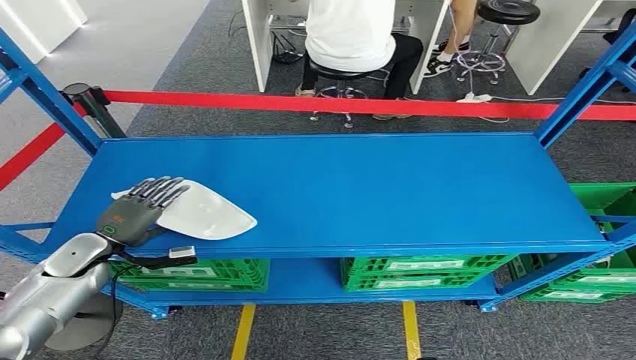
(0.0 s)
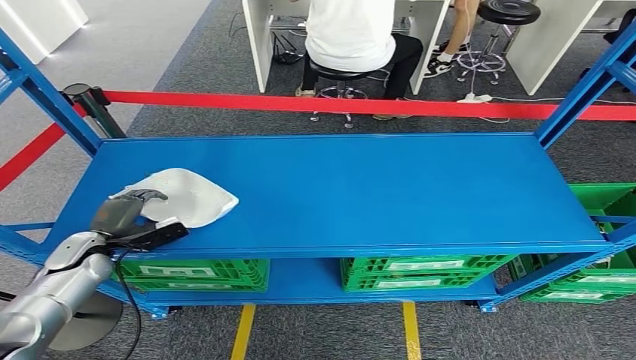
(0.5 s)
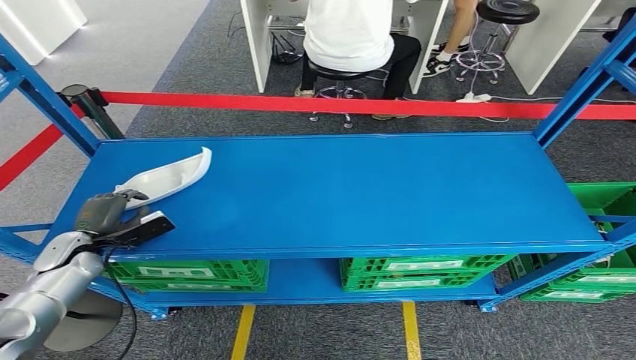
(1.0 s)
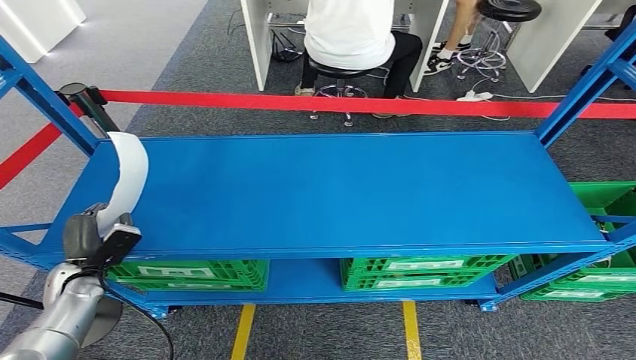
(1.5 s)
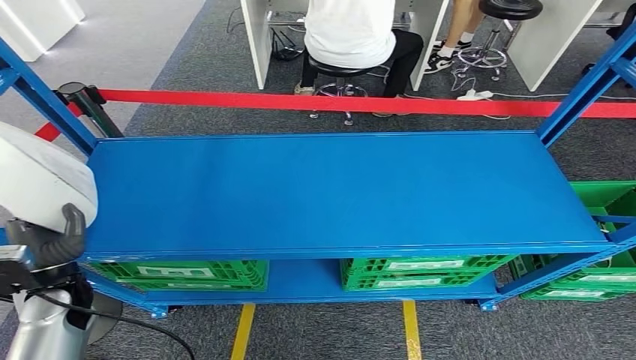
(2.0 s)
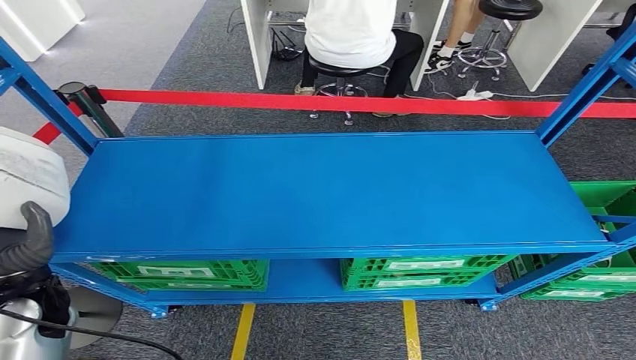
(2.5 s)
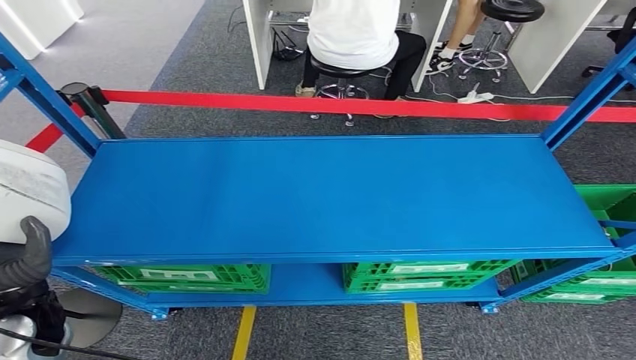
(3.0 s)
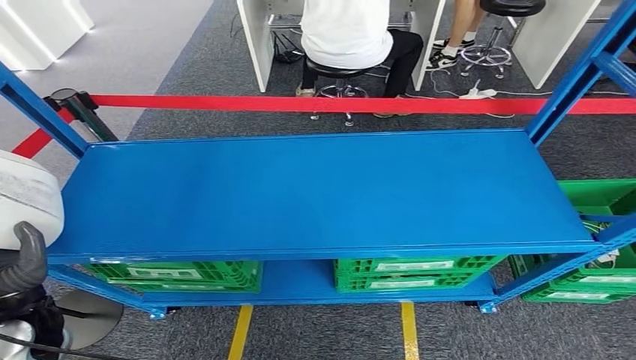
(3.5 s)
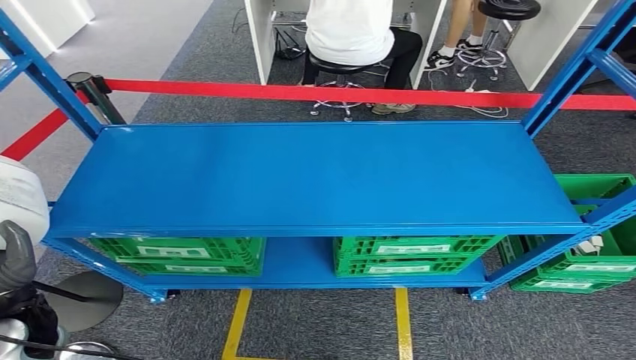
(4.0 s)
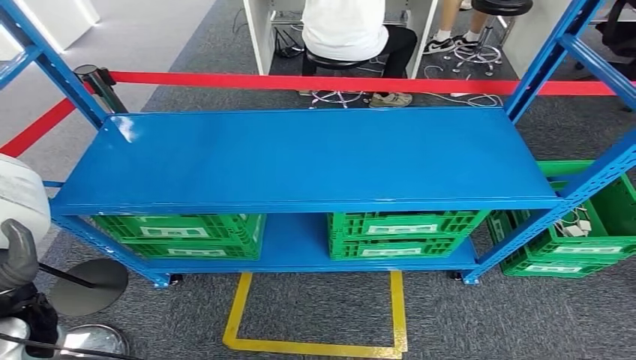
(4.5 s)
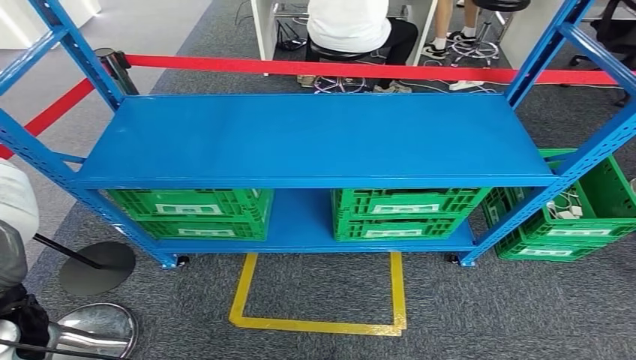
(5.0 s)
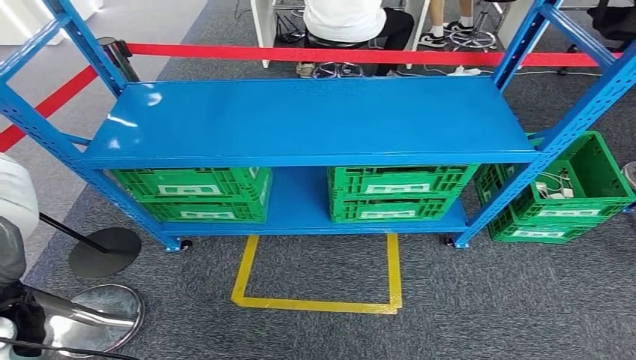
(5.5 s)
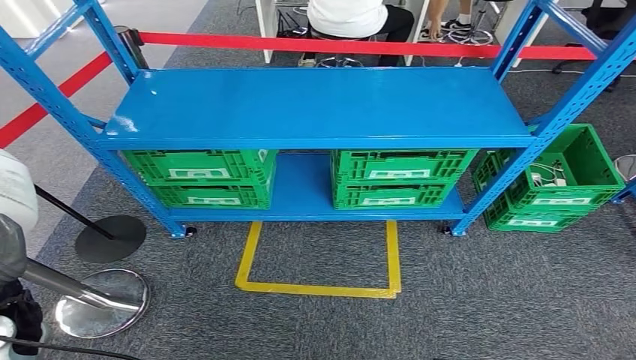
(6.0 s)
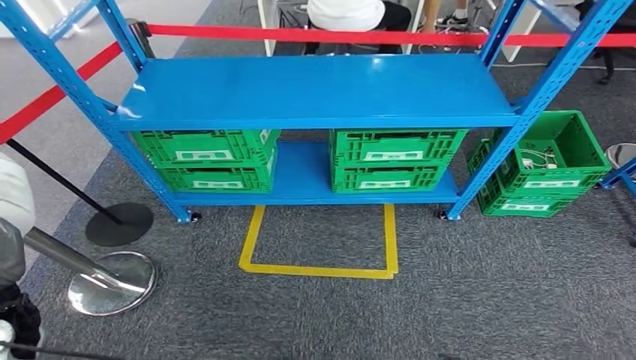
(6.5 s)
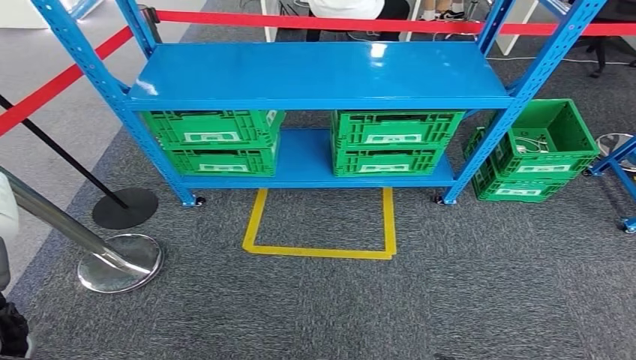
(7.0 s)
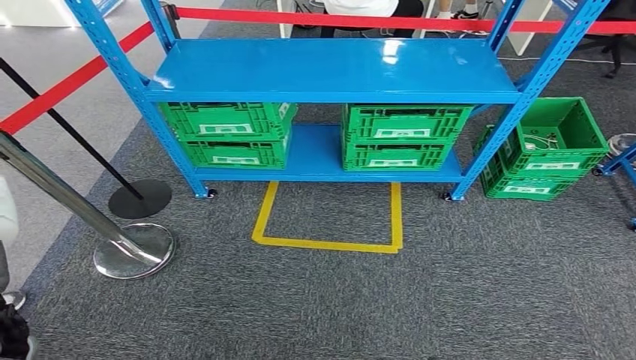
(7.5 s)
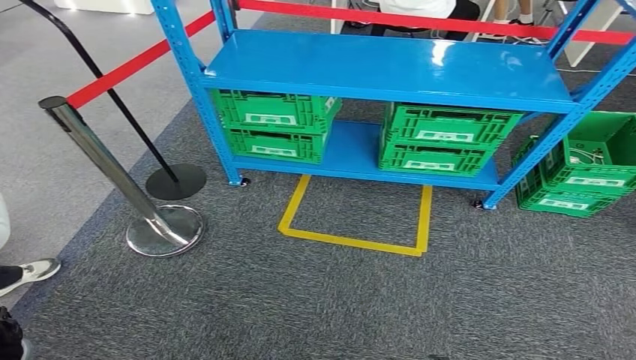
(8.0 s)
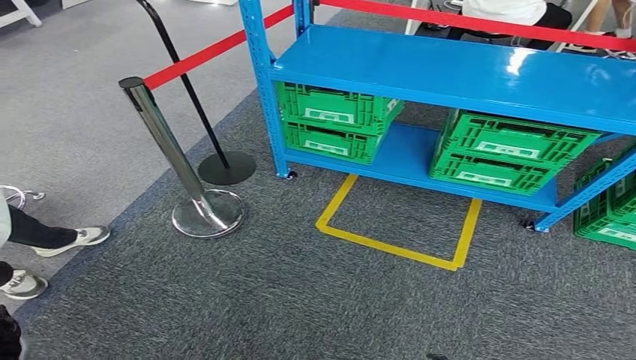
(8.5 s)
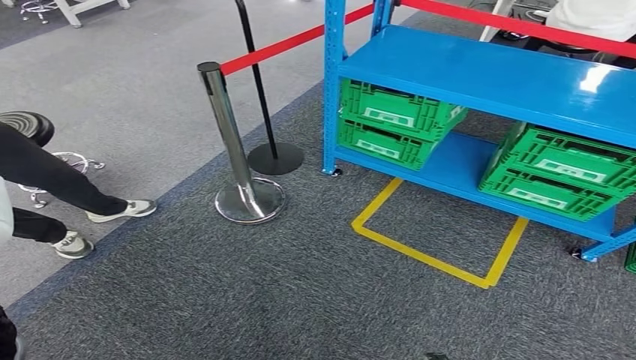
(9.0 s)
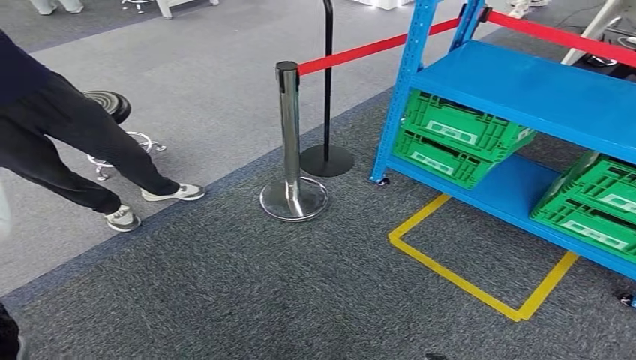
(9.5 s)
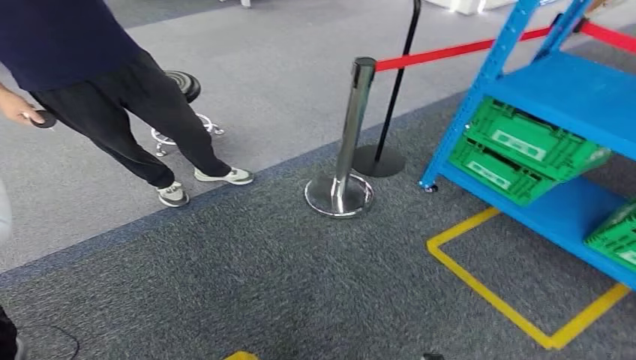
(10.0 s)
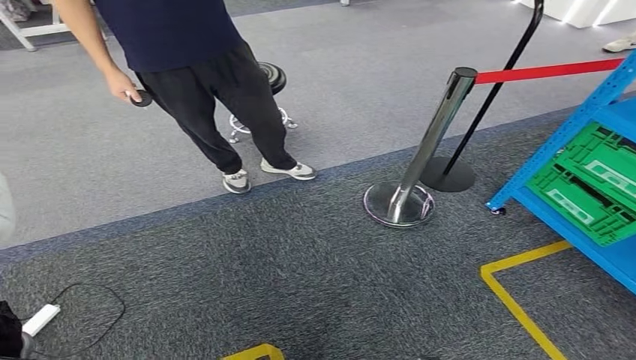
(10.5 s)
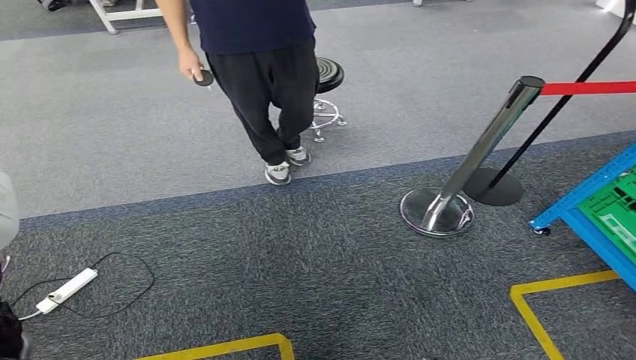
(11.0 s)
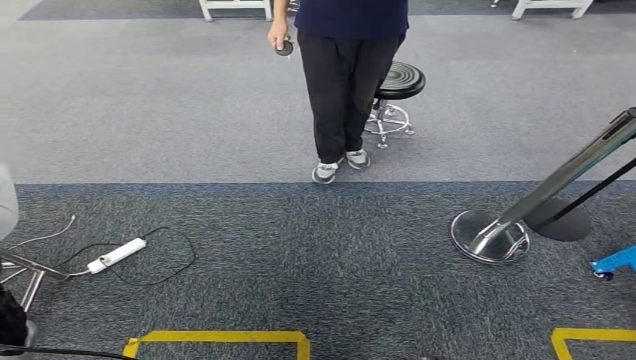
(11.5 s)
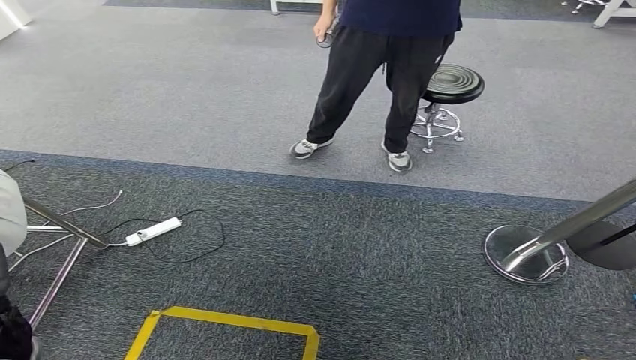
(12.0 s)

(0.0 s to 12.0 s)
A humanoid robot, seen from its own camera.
Step, 0.0 s - 5.0 s: Pick up the small parts from the shelf.

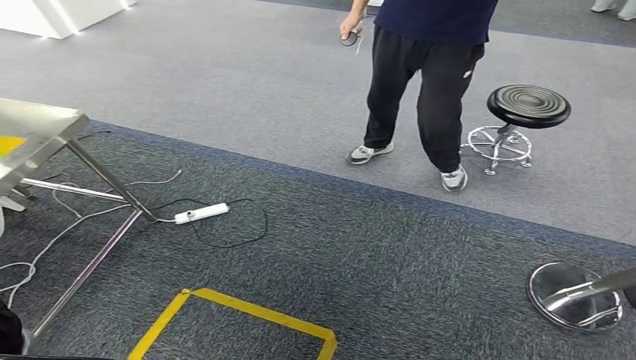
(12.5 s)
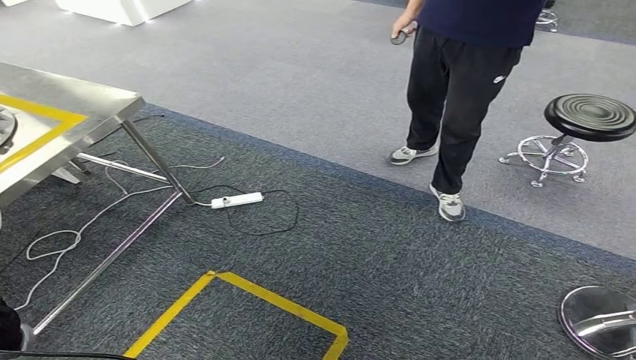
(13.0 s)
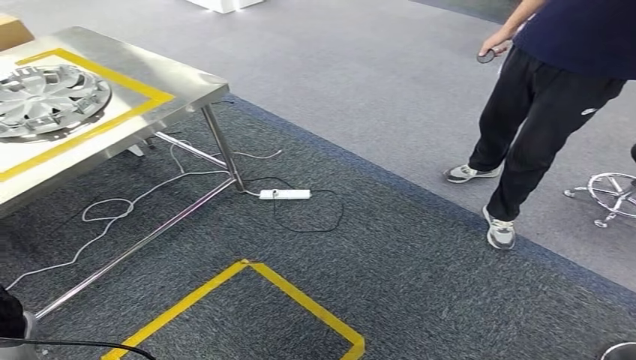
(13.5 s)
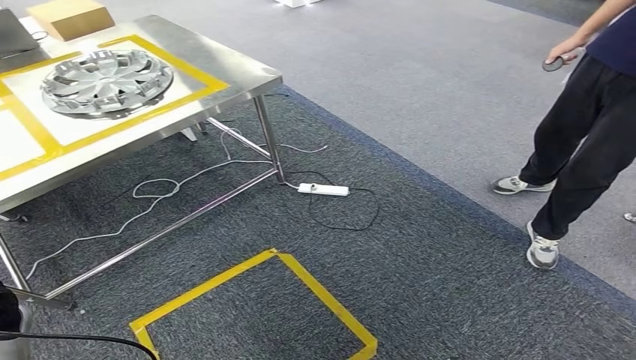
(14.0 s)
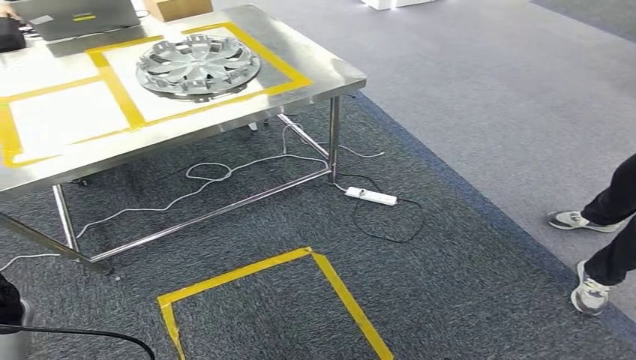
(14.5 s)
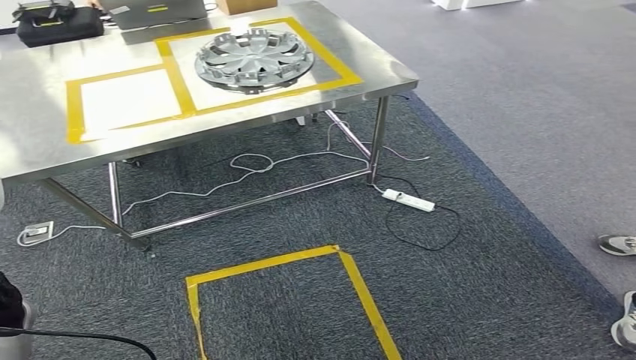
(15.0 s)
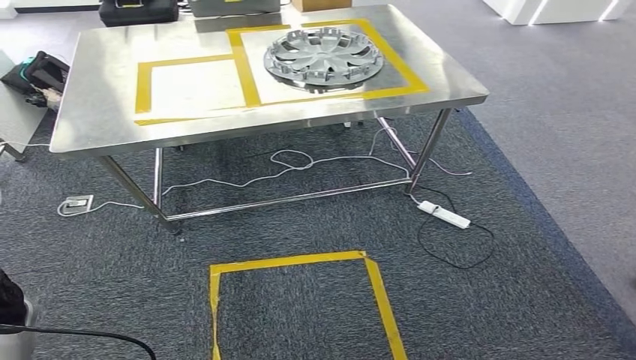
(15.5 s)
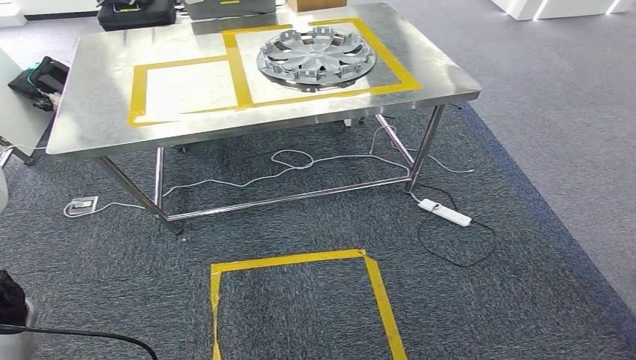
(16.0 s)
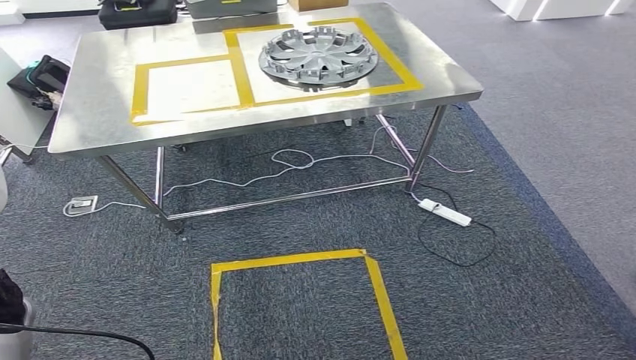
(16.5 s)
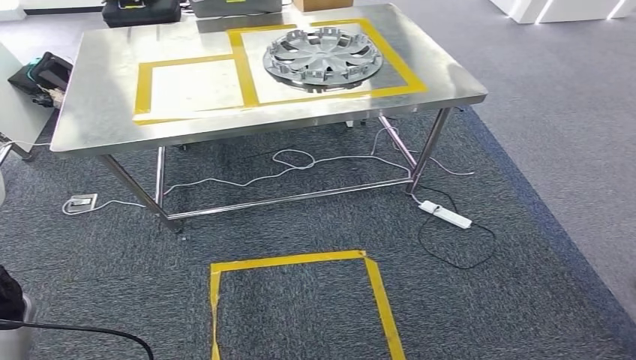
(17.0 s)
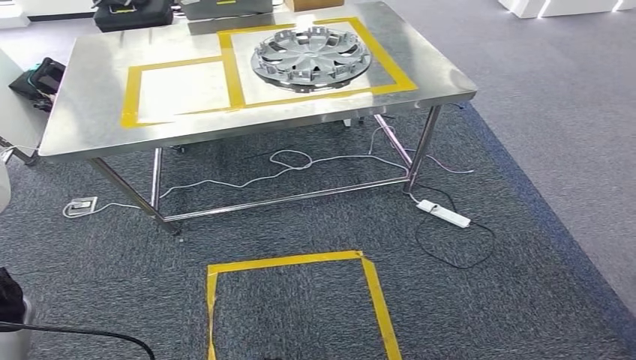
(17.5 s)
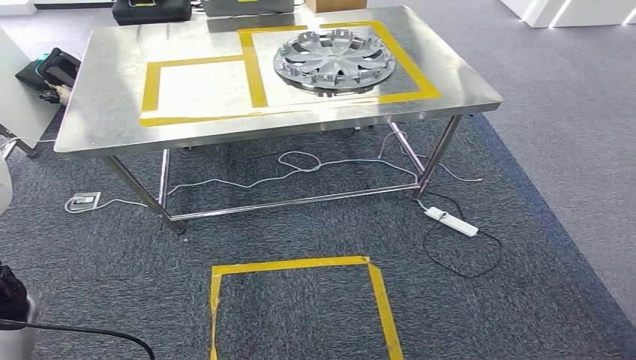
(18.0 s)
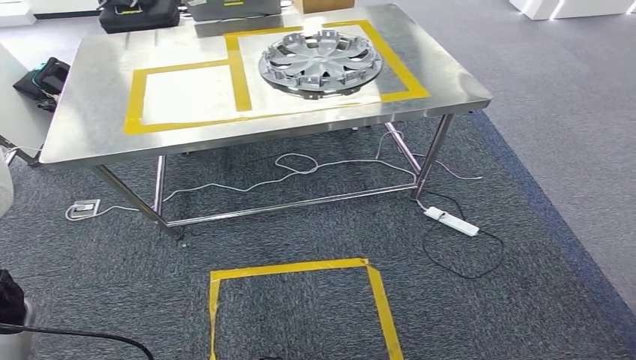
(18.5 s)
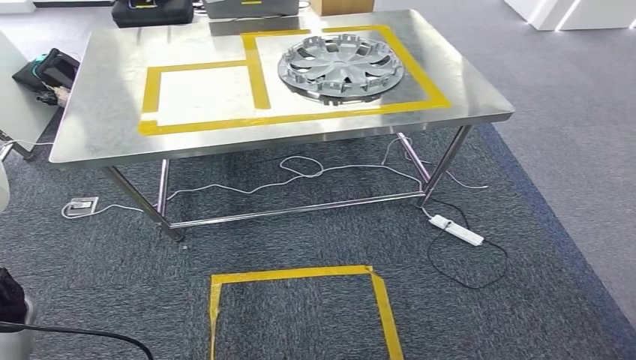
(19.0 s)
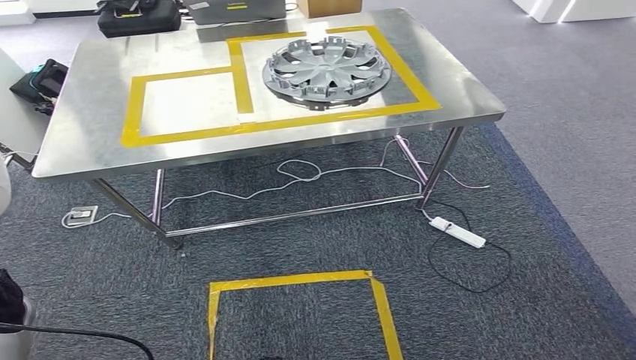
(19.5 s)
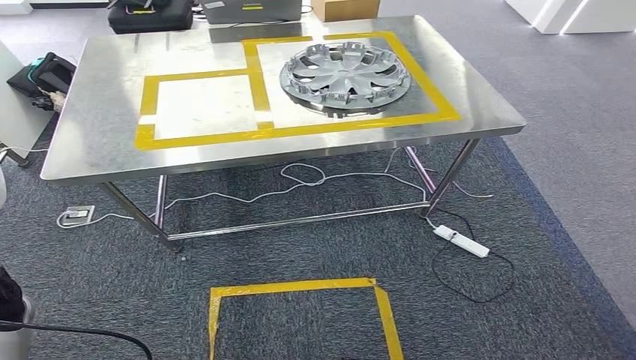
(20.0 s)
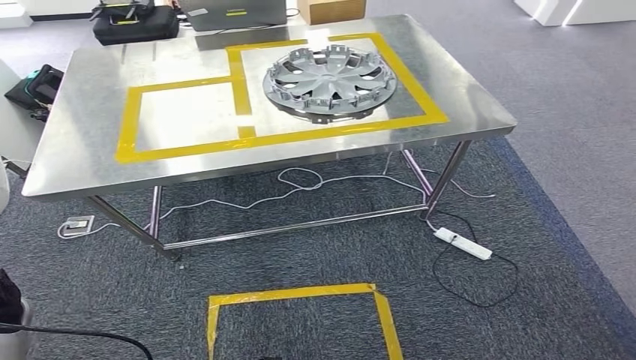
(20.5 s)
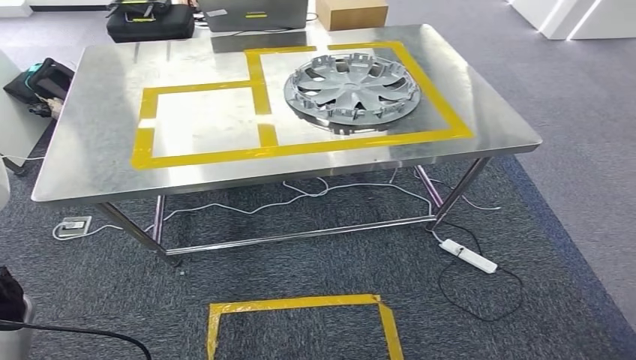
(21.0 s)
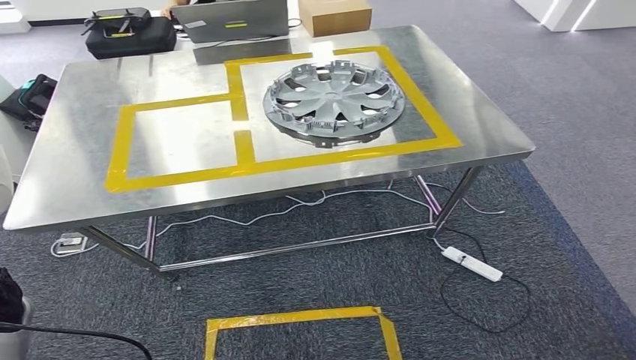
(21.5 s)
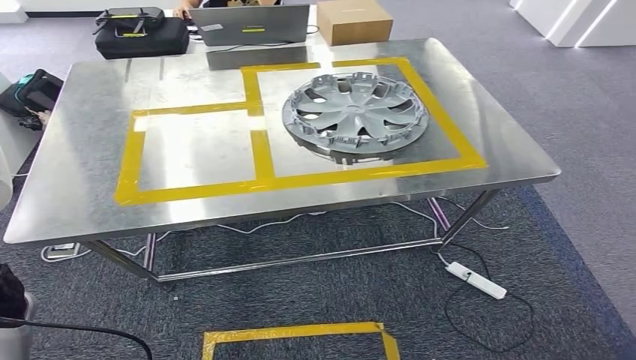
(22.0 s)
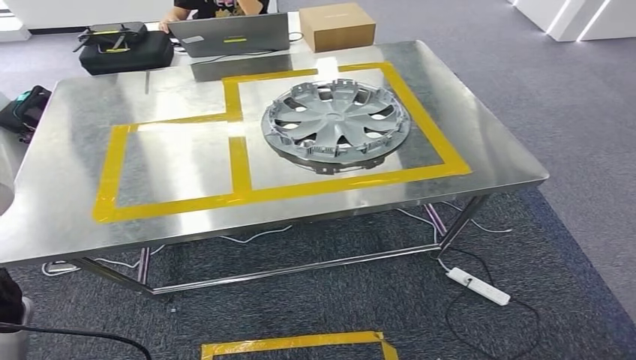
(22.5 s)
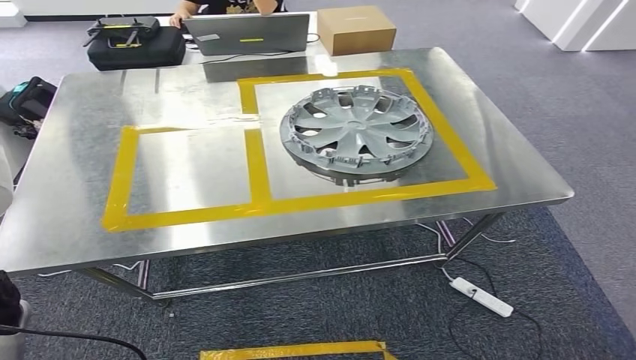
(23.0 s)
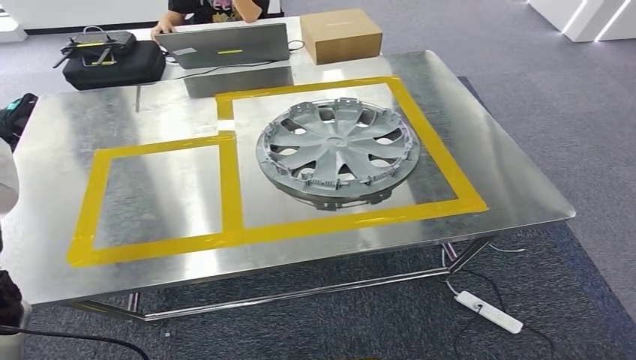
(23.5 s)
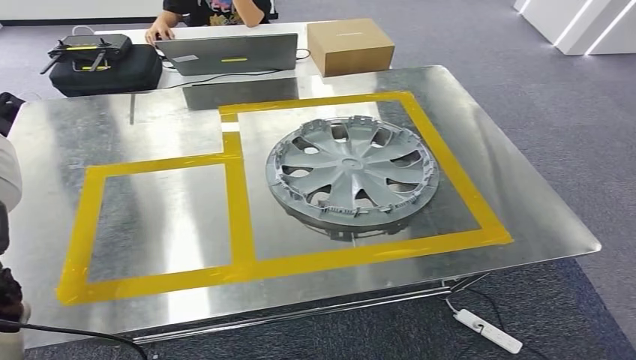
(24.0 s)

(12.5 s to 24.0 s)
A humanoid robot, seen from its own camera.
Step, 12.5 s - 18.5 s: Move the small parts to the workbench.
16.5 s - 18.5 s: The two hands keep their place.
